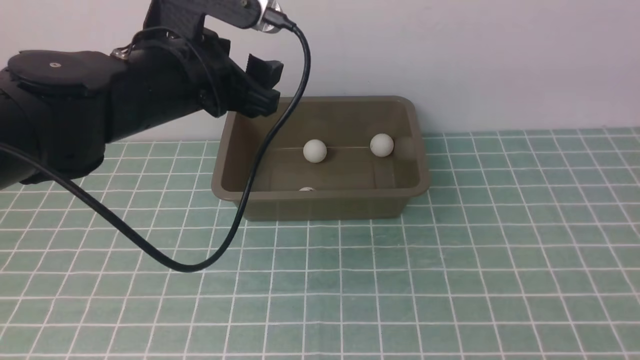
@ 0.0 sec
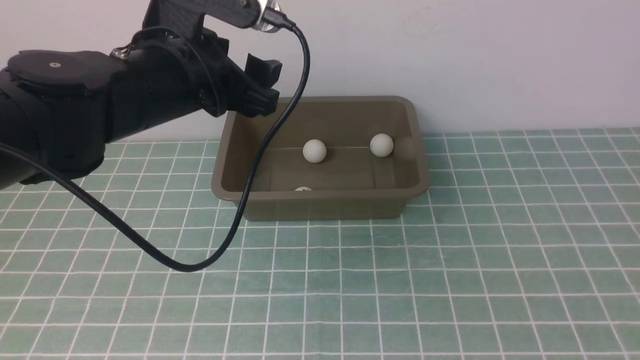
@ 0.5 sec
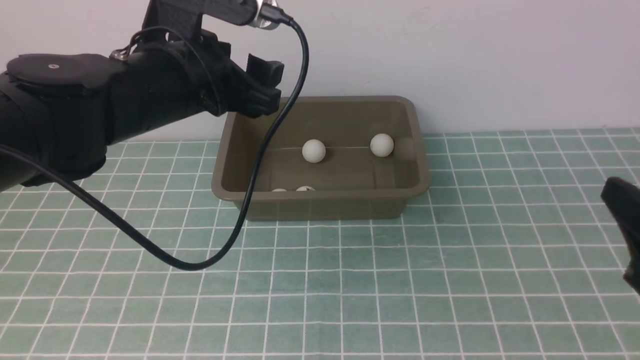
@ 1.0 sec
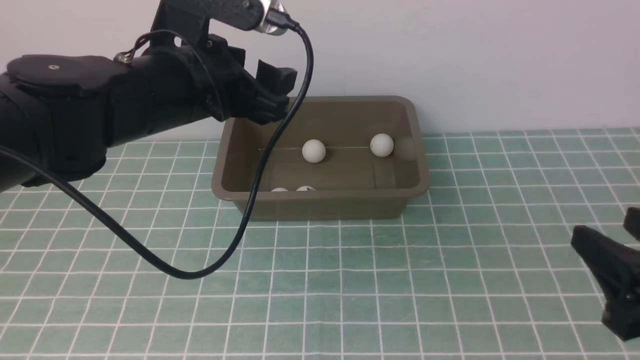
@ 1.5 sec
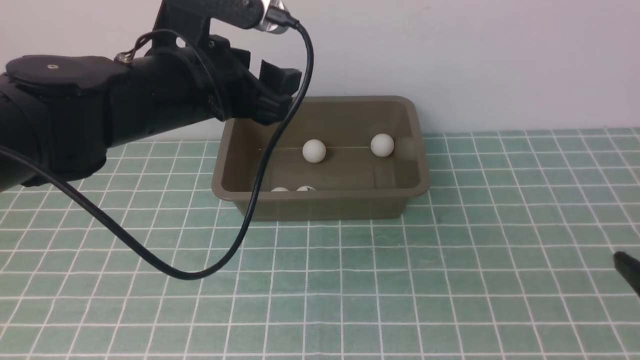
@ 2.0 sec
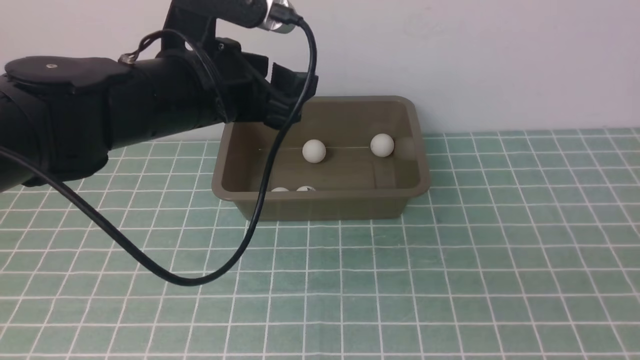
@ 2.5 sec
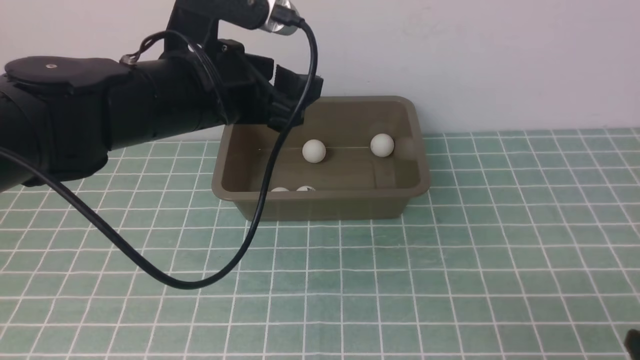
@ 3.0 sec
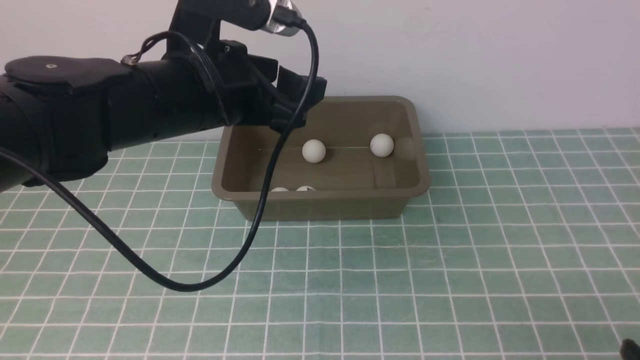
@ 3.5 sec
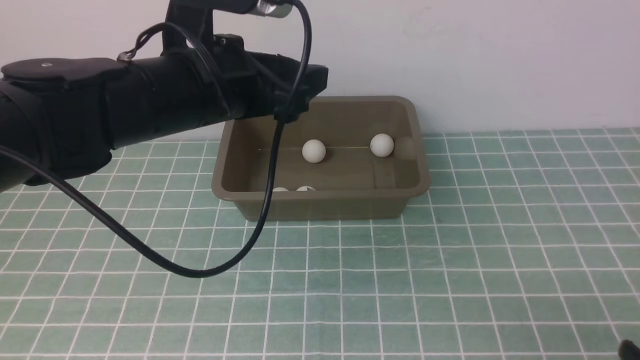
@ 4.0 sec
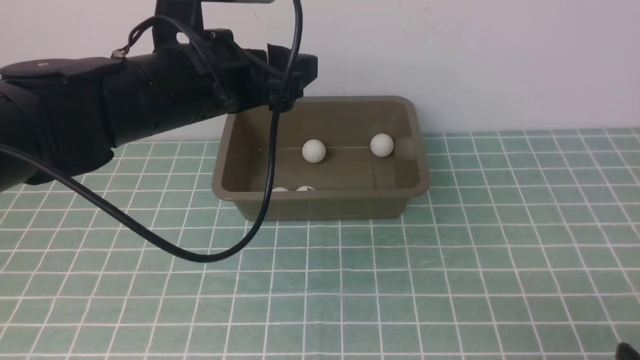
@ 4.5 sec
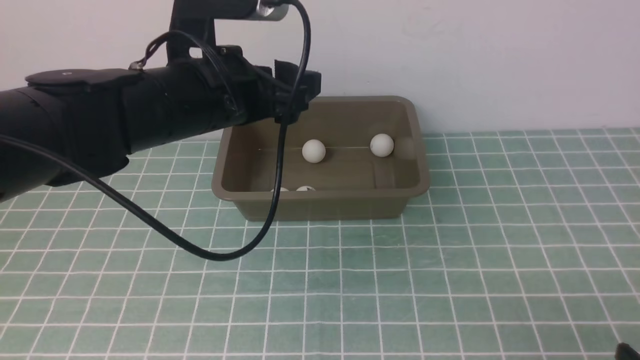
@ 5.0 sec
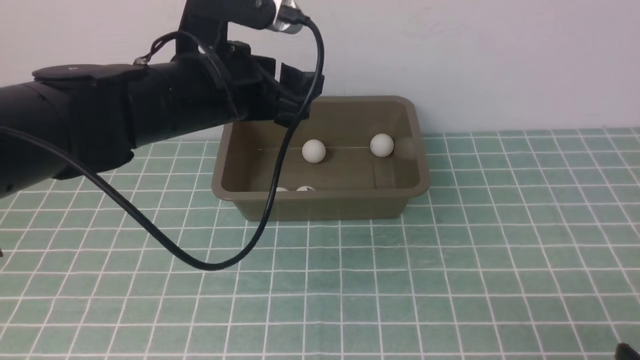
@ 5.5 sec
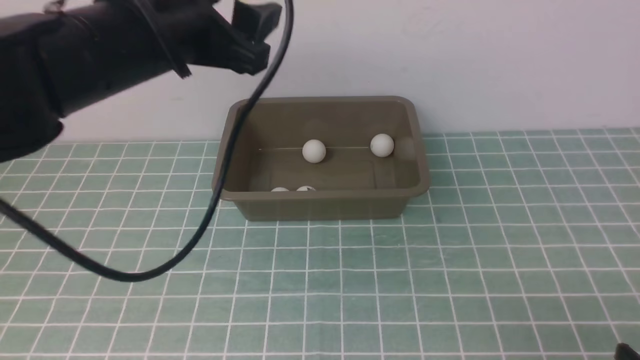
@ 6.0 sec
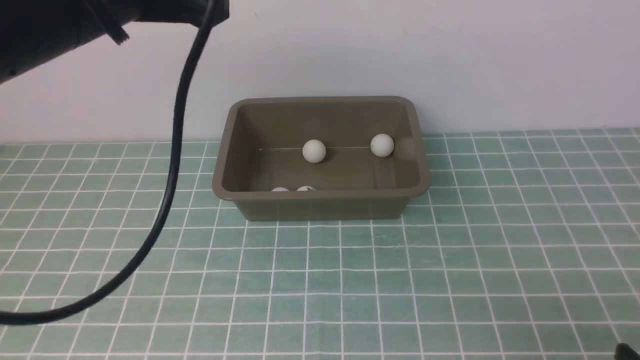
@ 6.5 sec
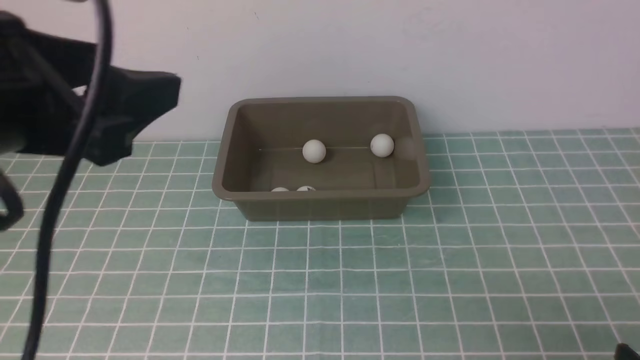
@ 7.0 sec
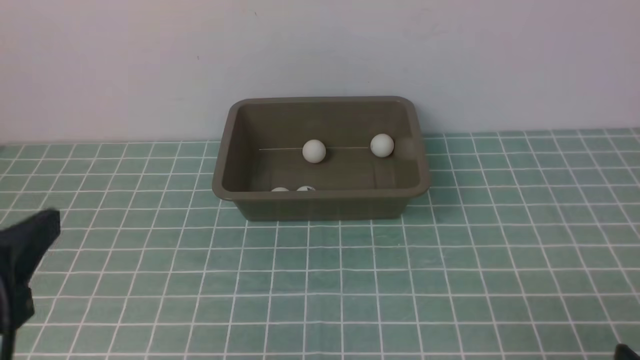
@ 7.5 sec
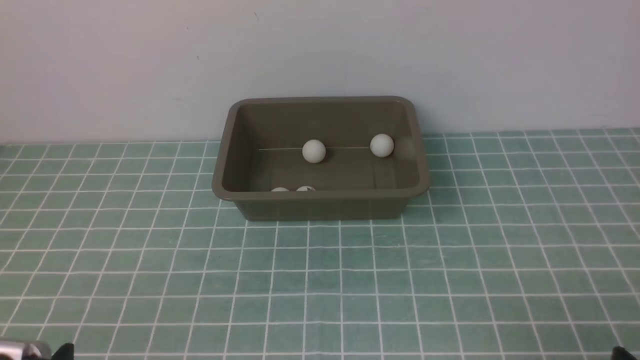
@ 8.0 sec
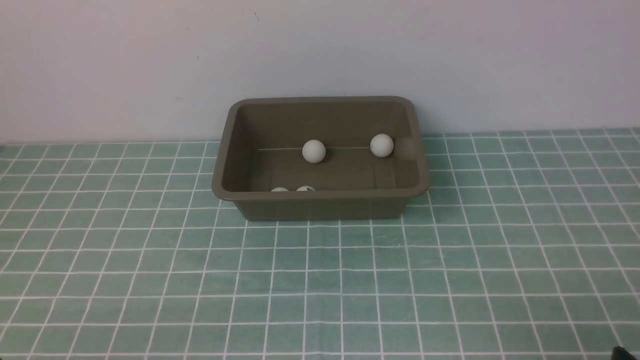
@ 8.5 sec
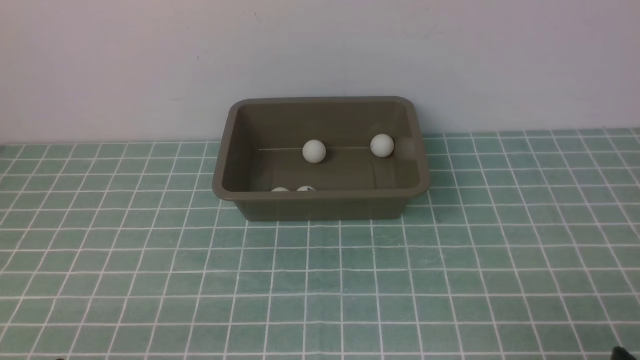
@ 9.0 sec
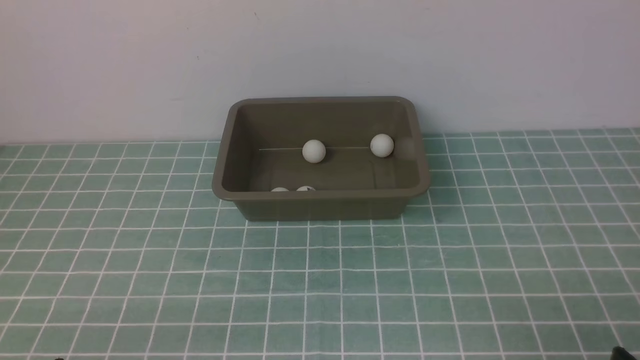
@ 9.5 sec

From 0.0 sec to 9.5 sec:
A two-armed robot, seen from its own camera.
From 0.0 sec to 2.0 sec: The right gripper heads downward, covering about 20 cm.
From 2.0 sec to 4.0 sec: The right gripper shifts some 10 cm downward.
From 4.0 sec to 5.5 sec: There are only small adjustments of the grippers.
From 5.5 sec to 7.5 sec: The left gripper goes approximately 30 cm backward, to the left and downward.
From 7.5 sec to 9.5 sec: The left gripper moves downward, some 5 cm.

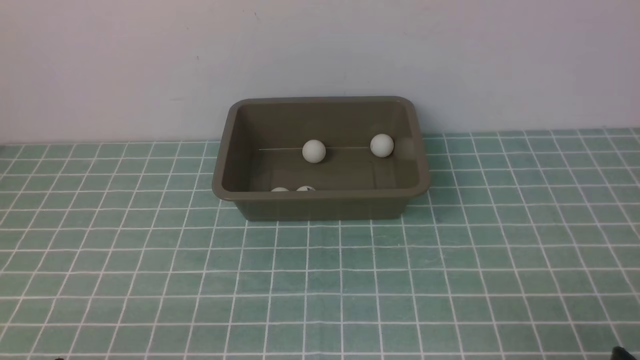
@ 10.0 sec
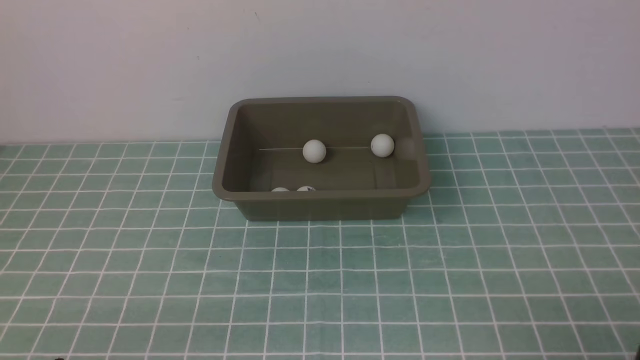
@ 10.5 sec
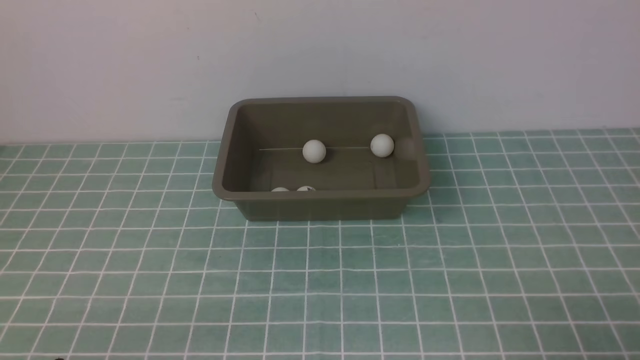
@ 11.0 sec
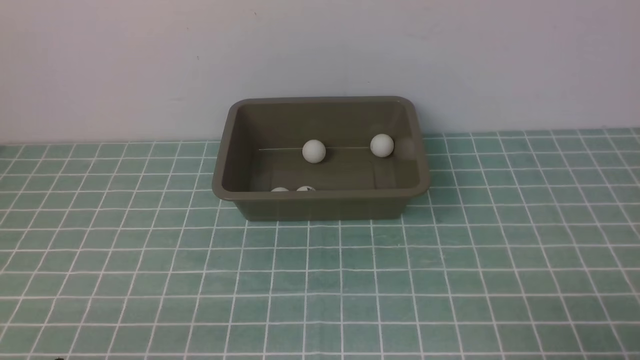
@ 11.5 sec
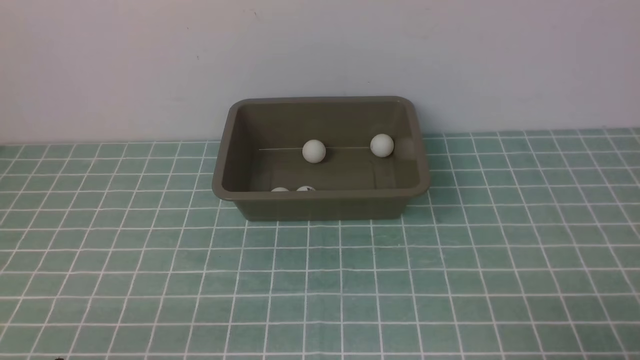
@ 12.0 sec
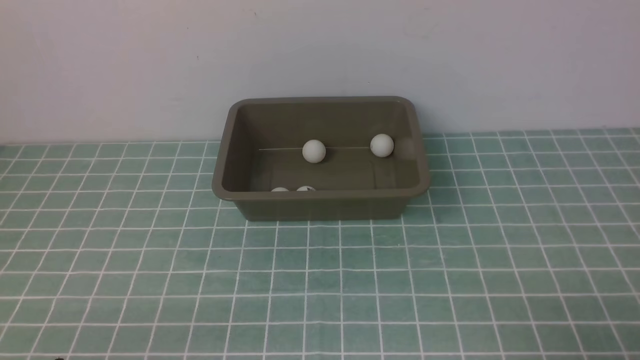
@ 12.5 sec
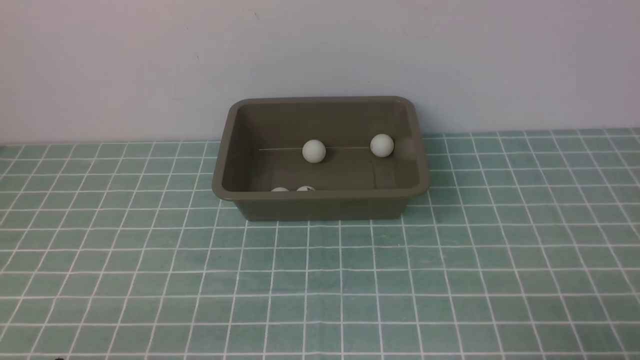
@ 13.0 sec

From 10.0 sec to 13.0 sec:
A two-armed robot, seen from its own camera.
From 11.5 sec to 13.0 sec: The two grippers keep their place.
